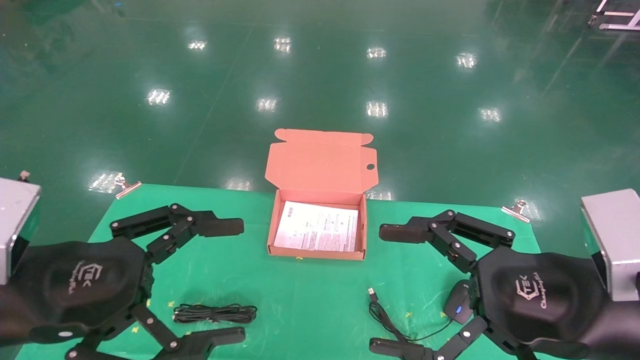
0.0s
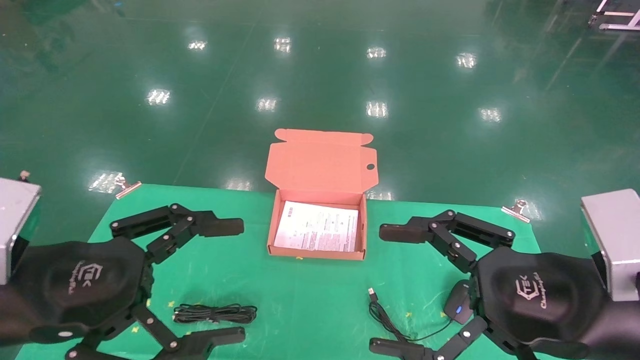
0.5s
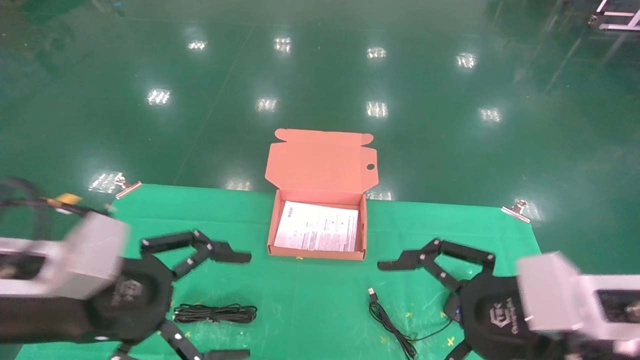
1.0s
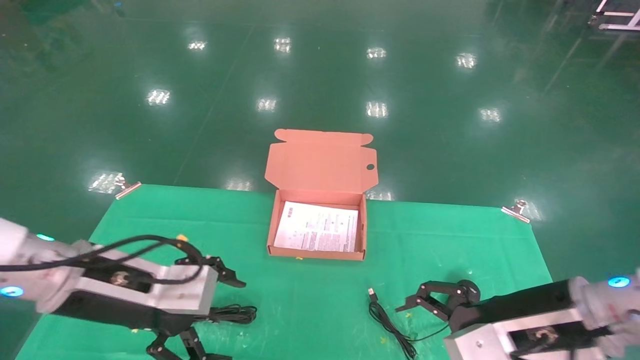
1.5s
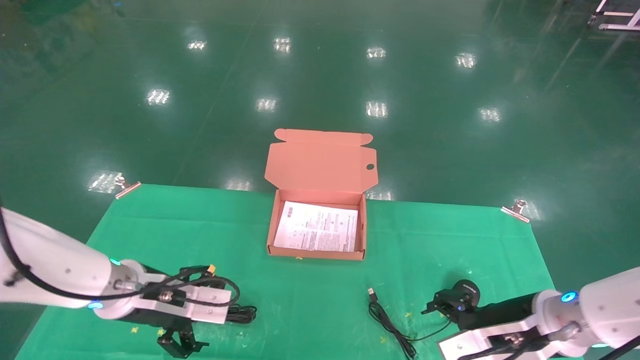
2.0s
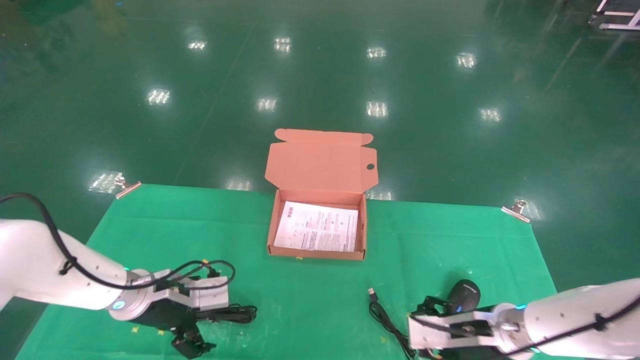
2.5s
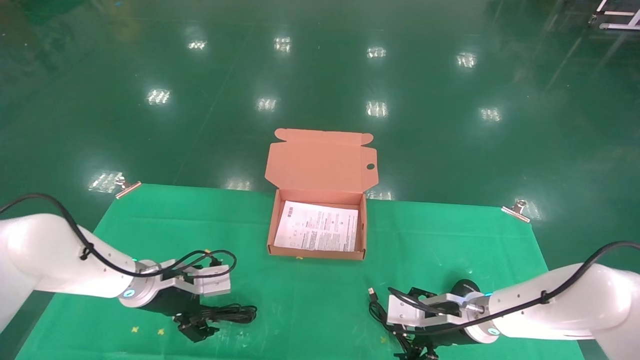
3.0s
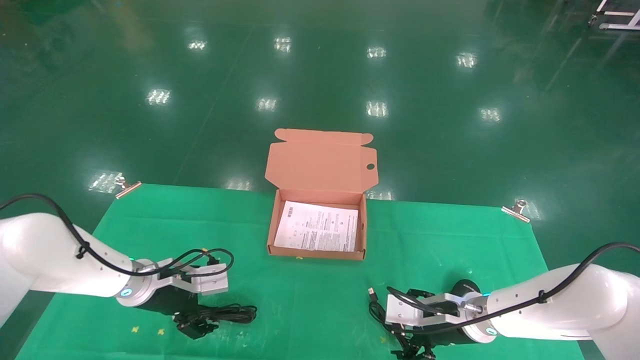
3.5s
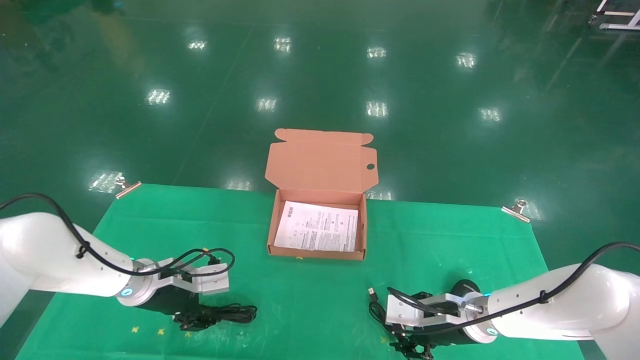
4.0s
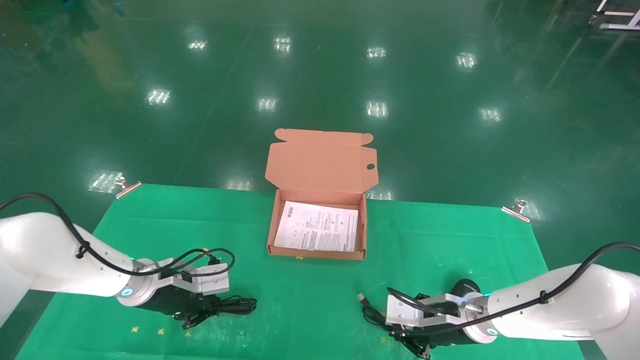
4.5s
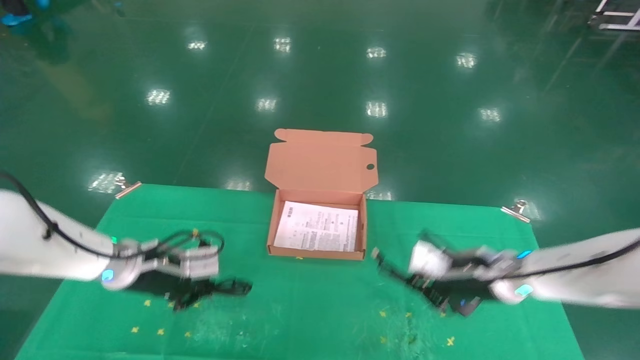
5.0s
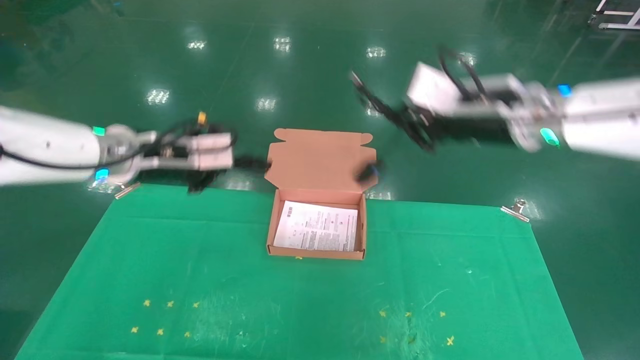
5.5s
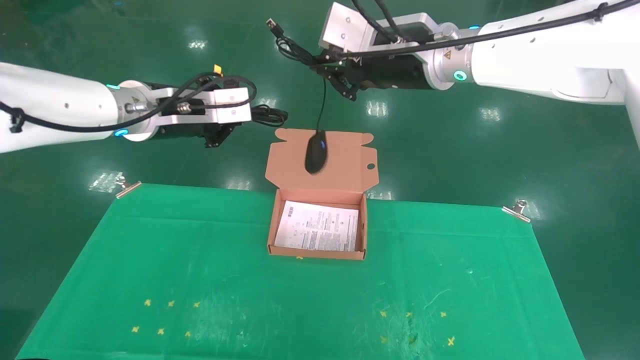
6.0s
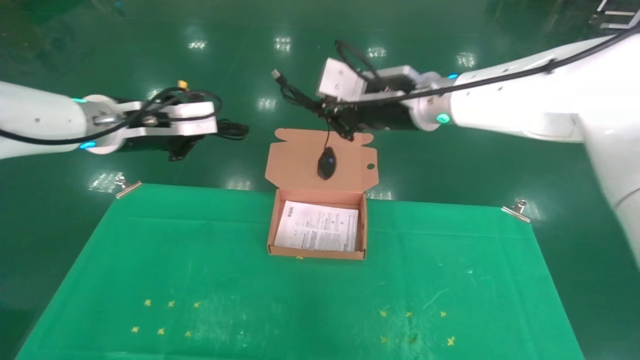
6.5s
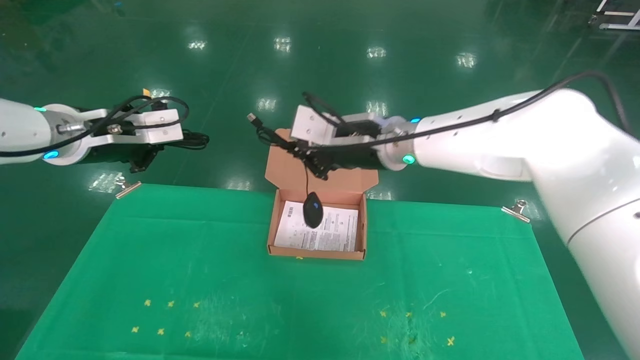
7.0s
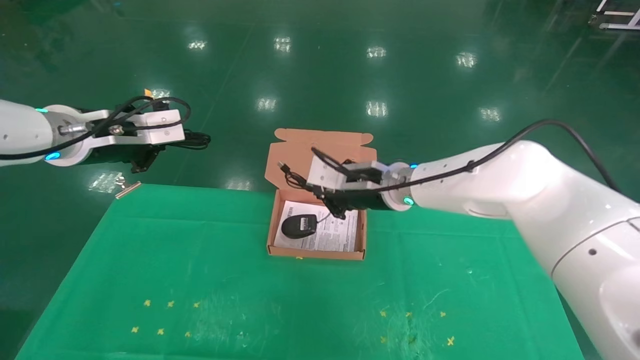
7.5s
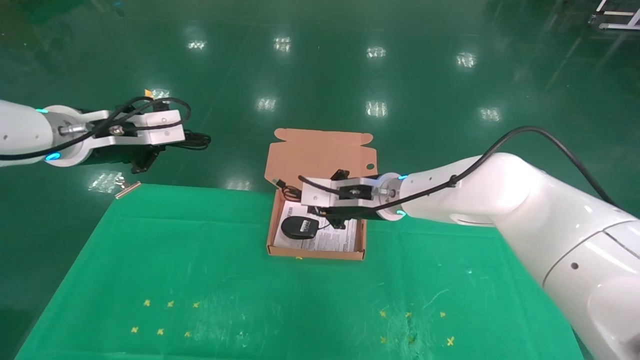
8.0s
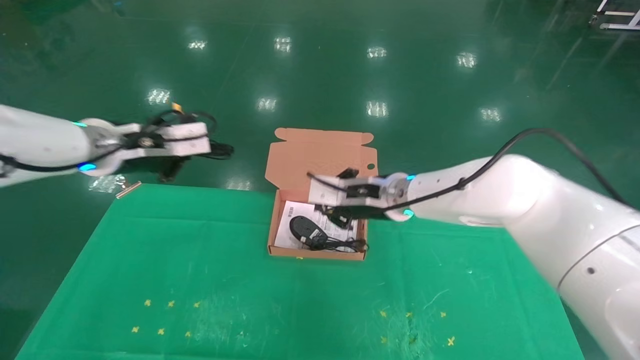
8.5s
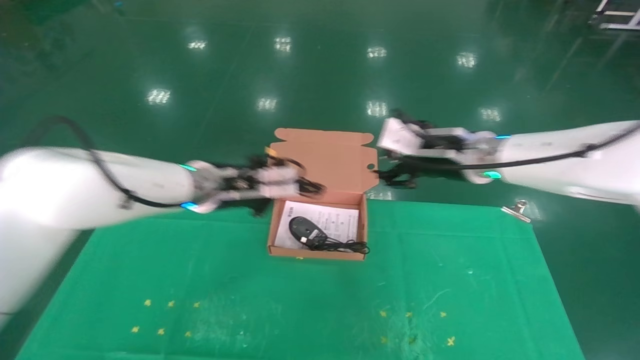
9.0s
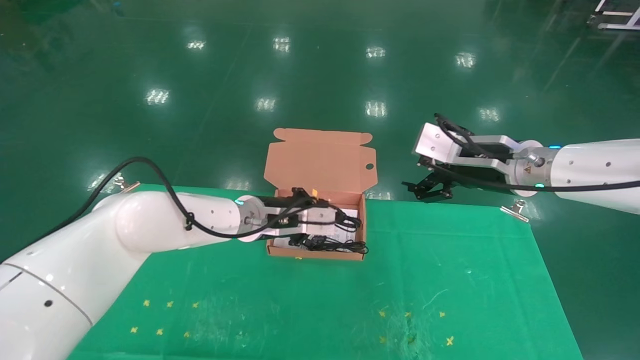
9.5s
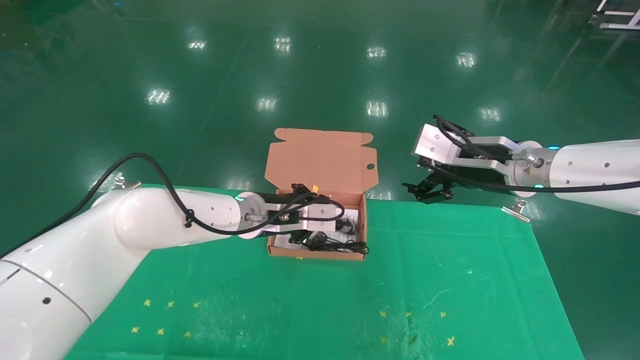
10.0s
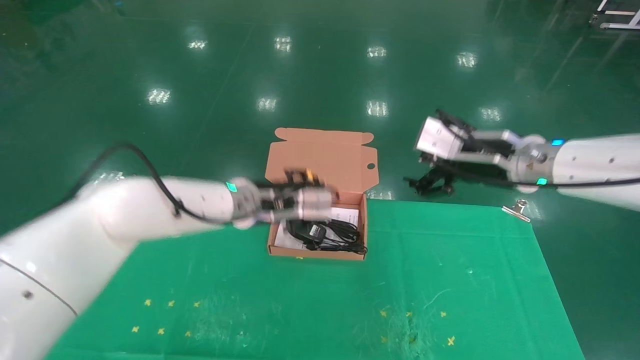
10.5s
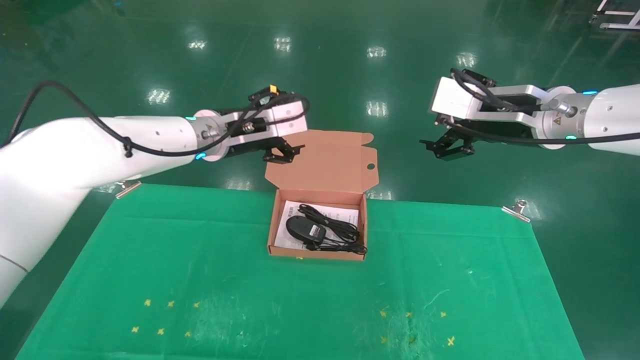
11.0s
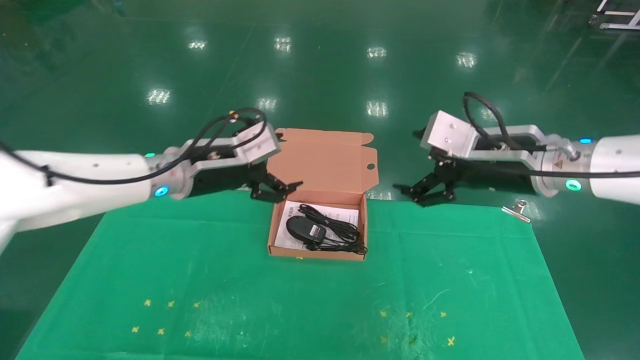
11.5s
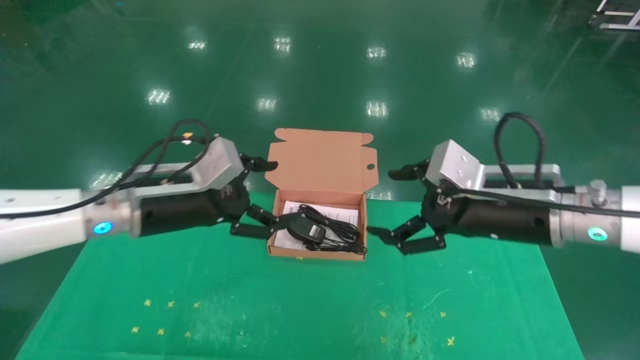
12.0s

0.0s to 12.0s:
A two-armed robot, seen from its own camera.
Task of the whole recording: grasp data cable left put into box grasp mouse right put into box.
Step, 0.5s to 5.5s: Grab and pick up both the mouse and power cord from the accessory packaging area at the same time.
Step, 6.0s to 10.5s: Place the mouse and power cord into the box.
0.0s to 2.0s: Both grippers move forward and downward, roughly 20 cm.
2.0s to 4.0s: The right gripper moves forward and downward, approximately 10 cm, and closes up; the left gripper goes roughly 10 cm forward, and closes.
4.0s to 6.0s: The two grippers go about 30 cm upward. The right gripper closes. Meanwhile the left gripper closes its fingers.
6.0s to 8.0s: The left gripper travels to the left by about 10 cm. Meanwhile the right gripper travels downward by roughly 20 cm.
8.0s to 10.0s: The right gripper shifts some 15 cm to the right, and opens up; the left gripper goes approximately 25 cm to the right and downward.
10.0s to 12.0s: The right gripper goes approximately 5 cm backward, and moves about 5 cm upward and comes back. Meanwhile the left gripper travels to the left, backward and upward by roughly 15 cm, and opens.
